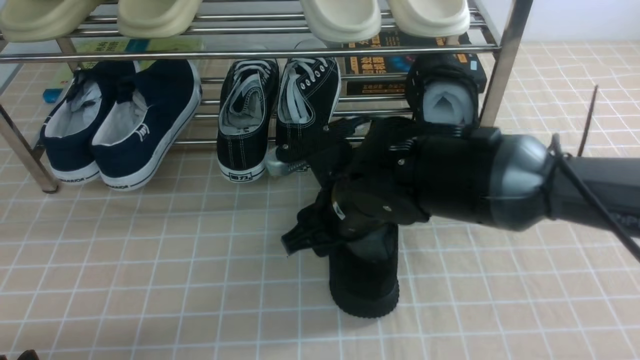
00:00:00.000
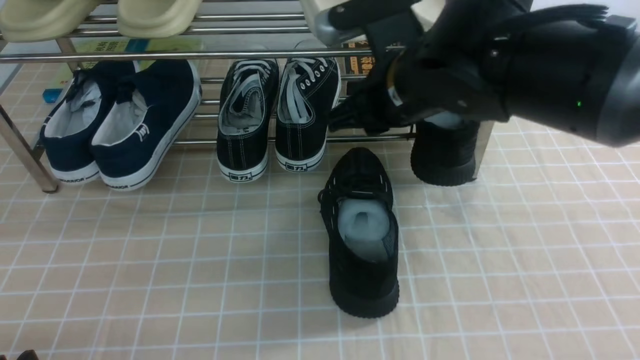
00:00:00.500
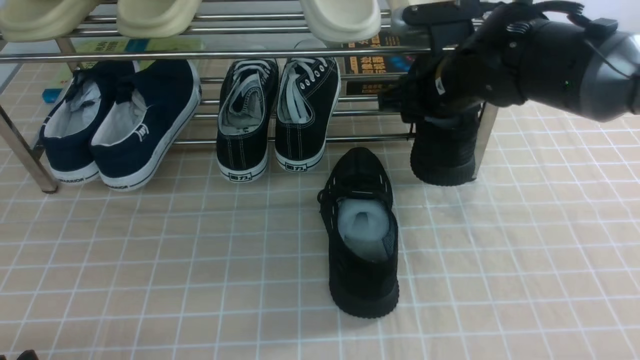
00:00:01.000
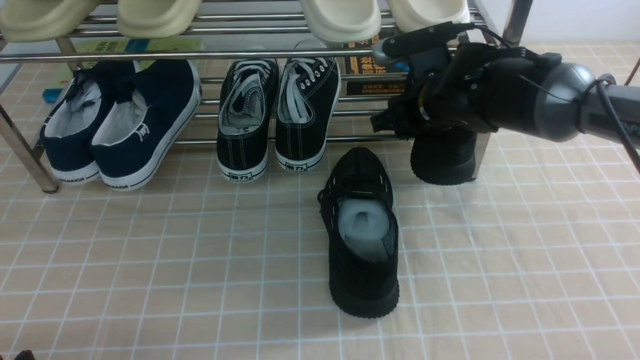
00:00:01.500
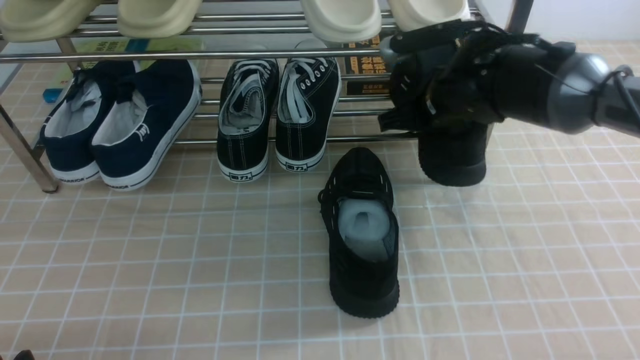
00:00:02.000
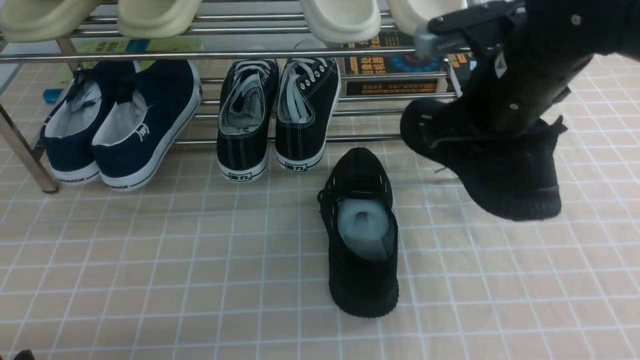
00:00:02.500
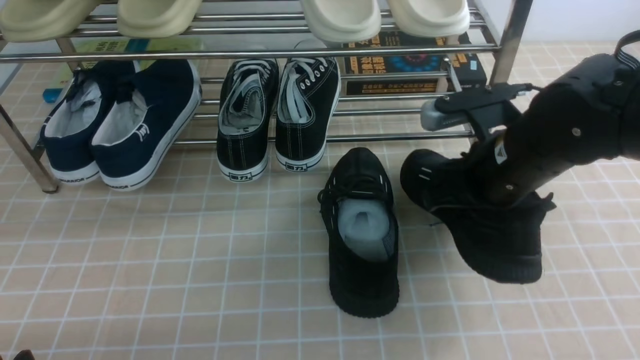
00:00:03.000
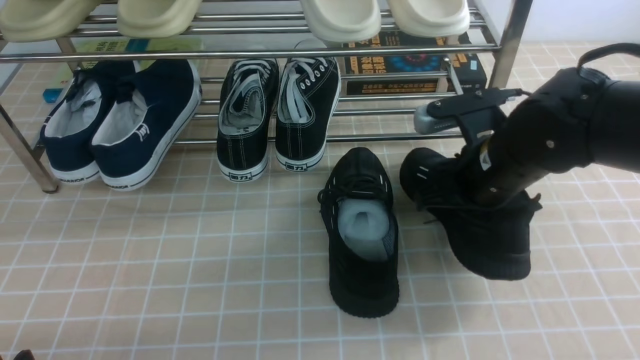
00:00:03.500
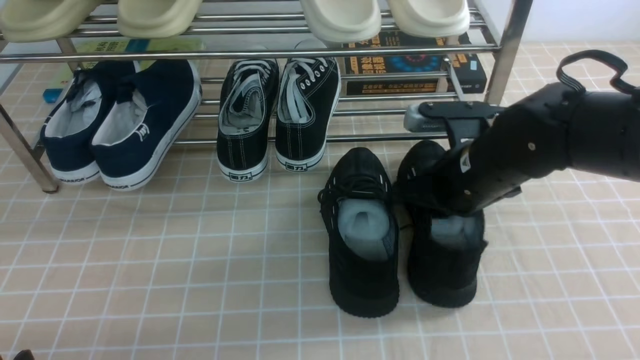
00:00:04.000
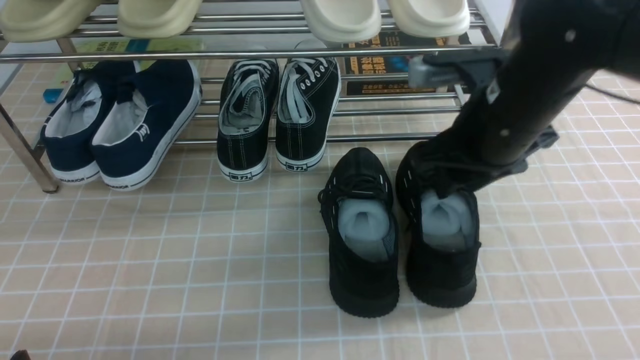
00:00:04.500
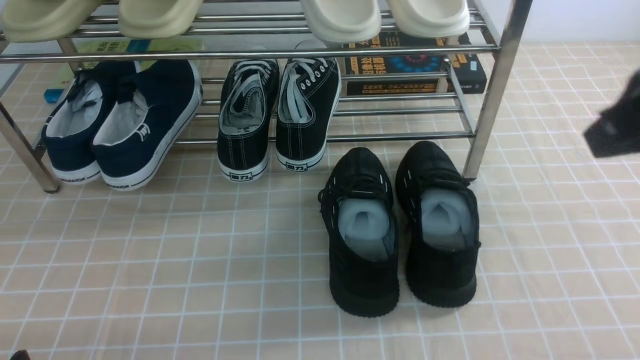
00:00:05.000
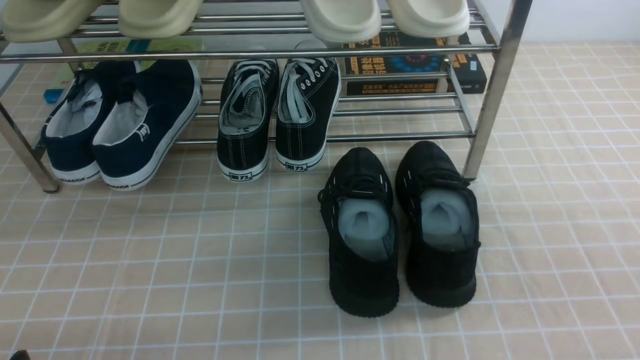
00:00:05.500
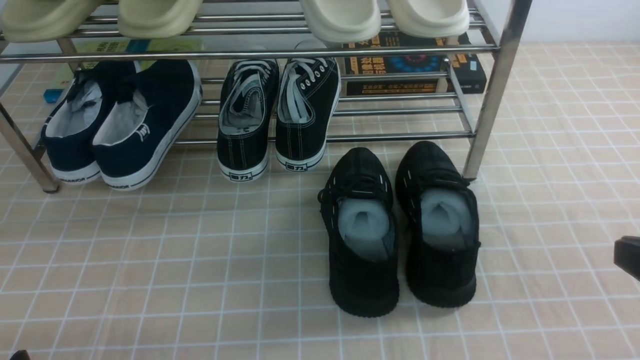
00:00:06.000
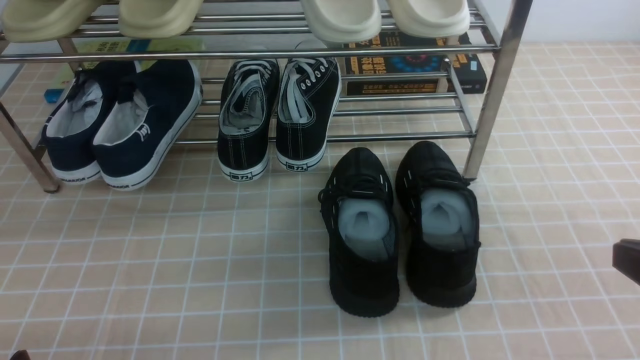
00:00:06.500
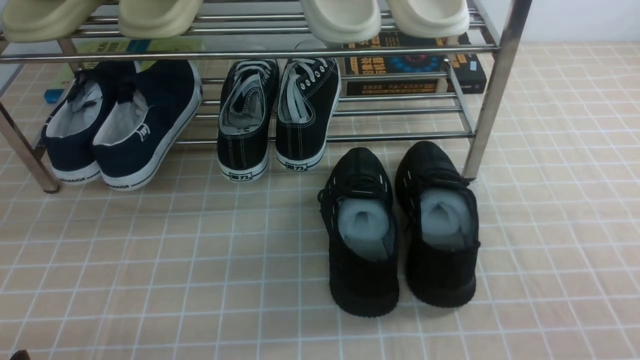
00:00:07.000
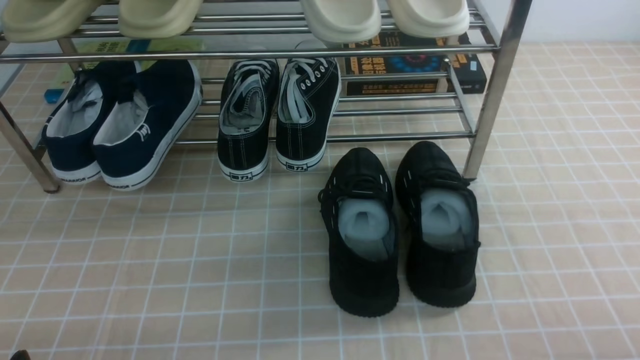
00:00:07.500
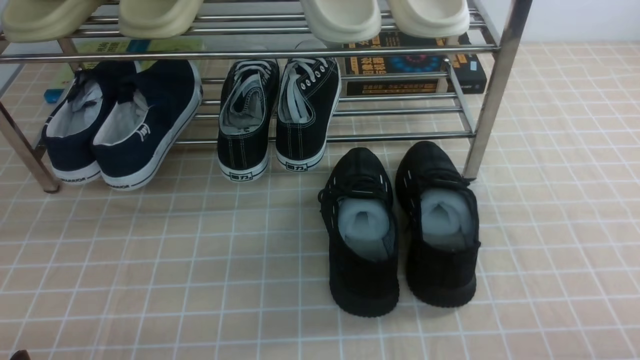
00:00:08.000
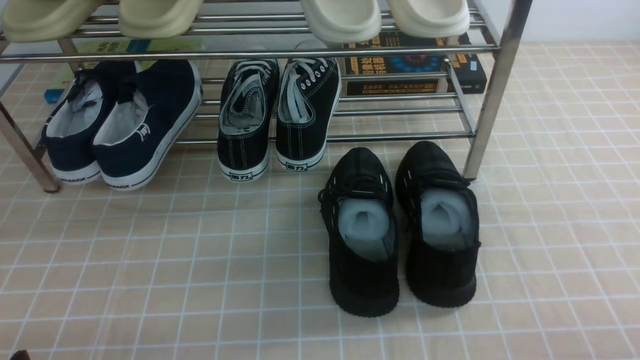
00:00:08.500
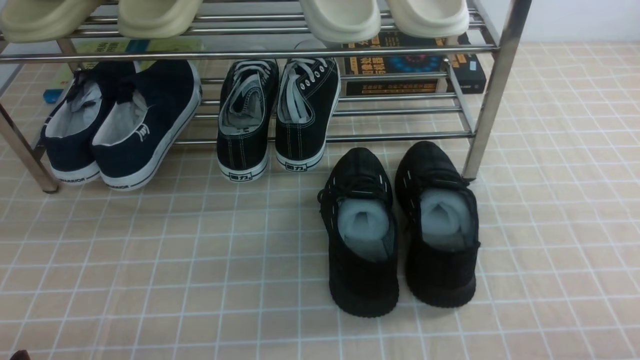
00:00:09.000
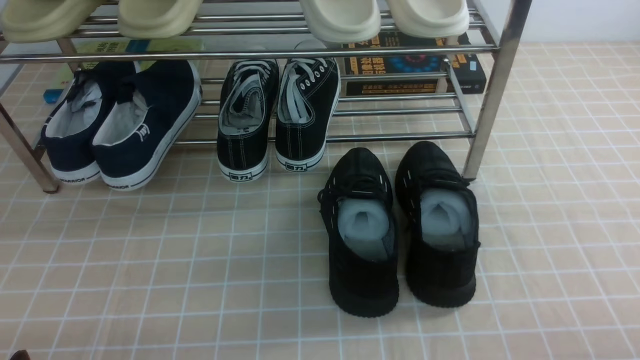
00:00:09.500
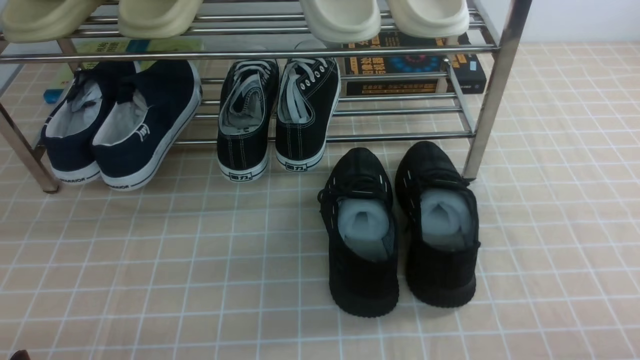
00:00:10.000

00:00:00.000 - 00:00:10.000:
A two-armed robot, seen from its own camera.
Step, 00:00:00.000 - 00:00:01.500: use the right arm to clamp a shoe on the right side of the shoe rack.
Step, 00:00:02.000 - 00:00:04.000: use the right arm to take out the clamped shoe from the shoe rack and put it down.
00:00:00.000 - 00:00:02.000: The right gripper goes approximately 15 cm forward and to the right, and closes its fingers.
00:00:02.000 - 00:00:04.000: The right gripper heads backward, covering about 5 cm, and opens.
00:00:04.000 - 00:00:06.000: The right gripper moves backward and to the right, some 25 cm, and closes up.
00:00:08.000 - 00:00:10.000: Both grippers stay put.

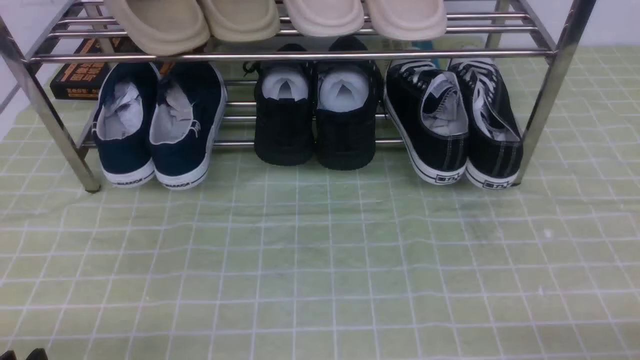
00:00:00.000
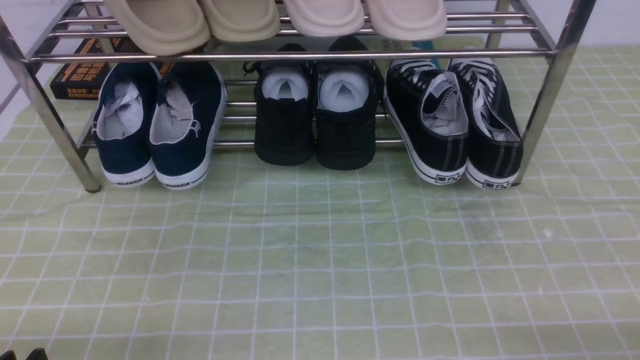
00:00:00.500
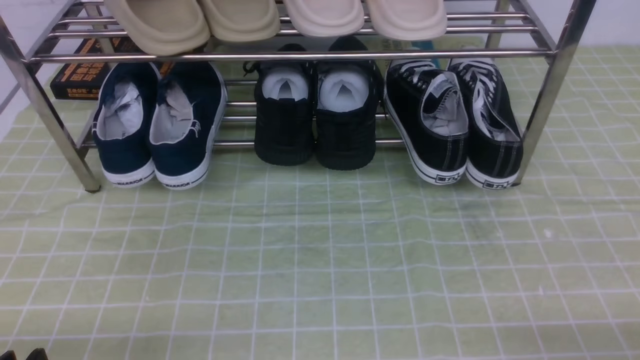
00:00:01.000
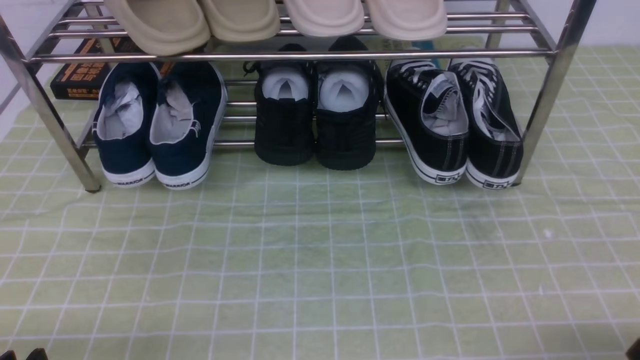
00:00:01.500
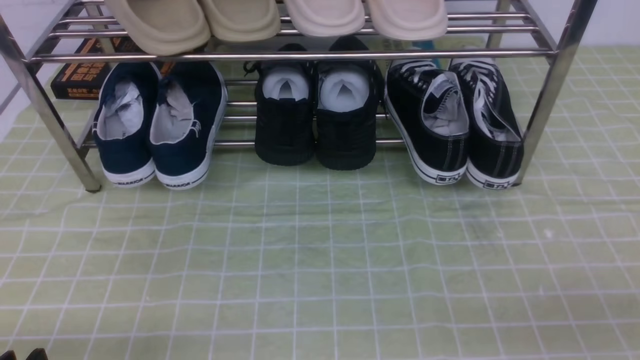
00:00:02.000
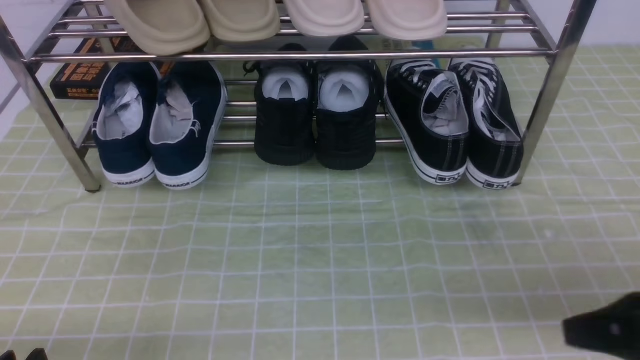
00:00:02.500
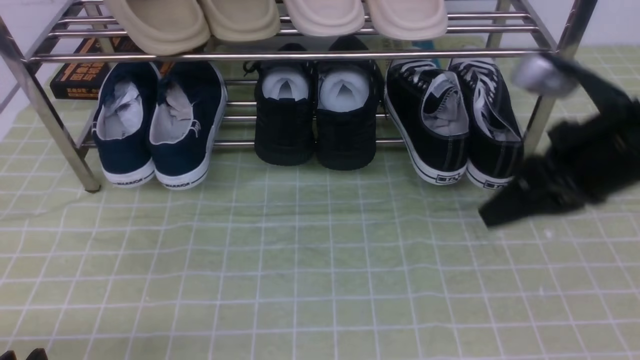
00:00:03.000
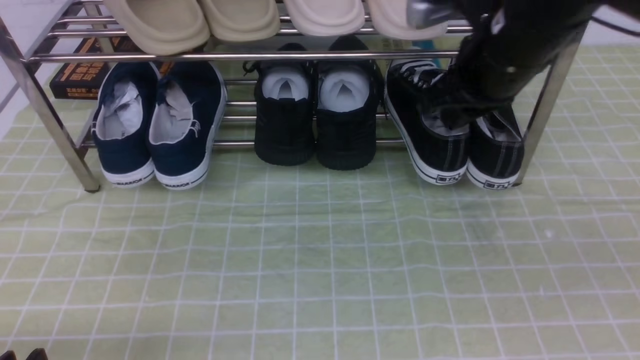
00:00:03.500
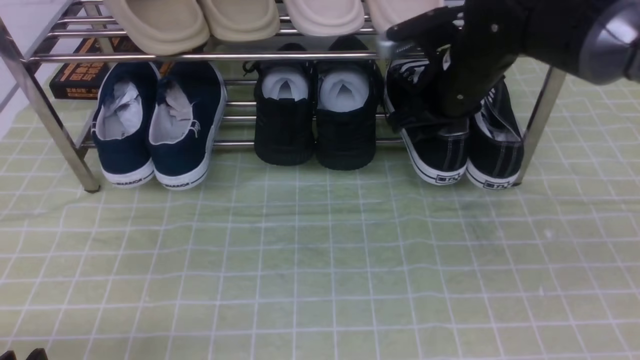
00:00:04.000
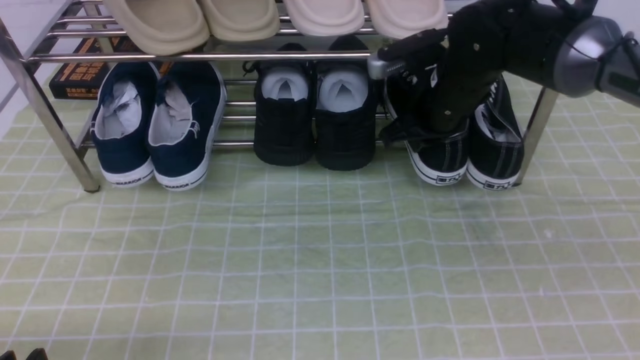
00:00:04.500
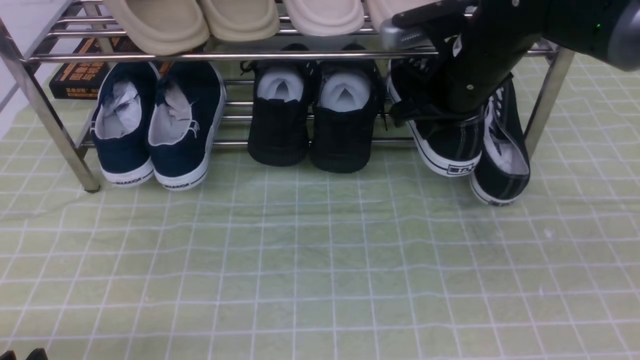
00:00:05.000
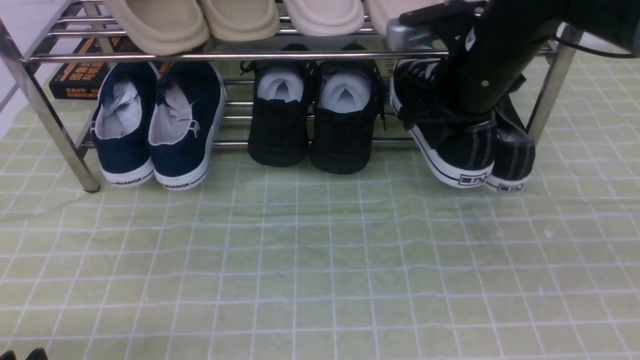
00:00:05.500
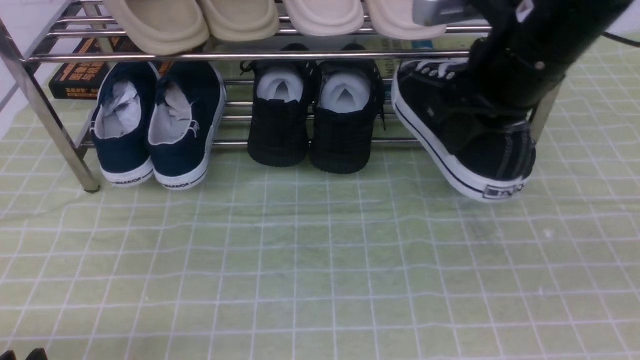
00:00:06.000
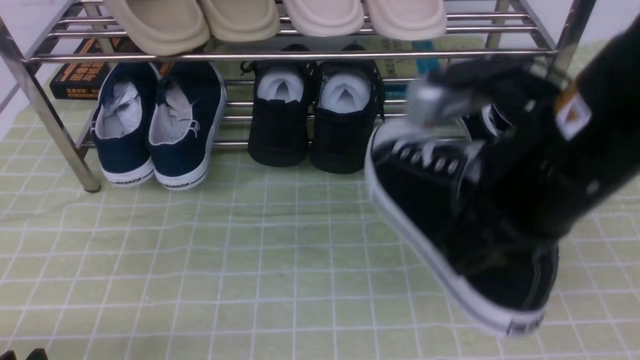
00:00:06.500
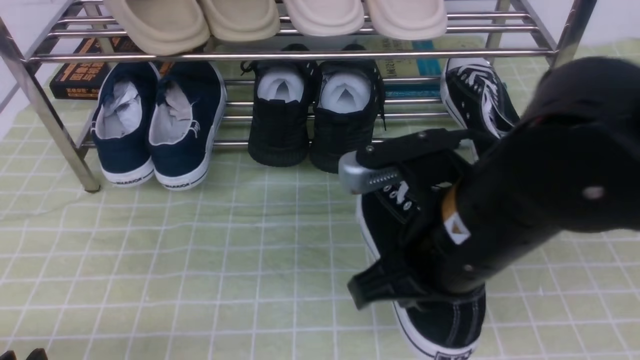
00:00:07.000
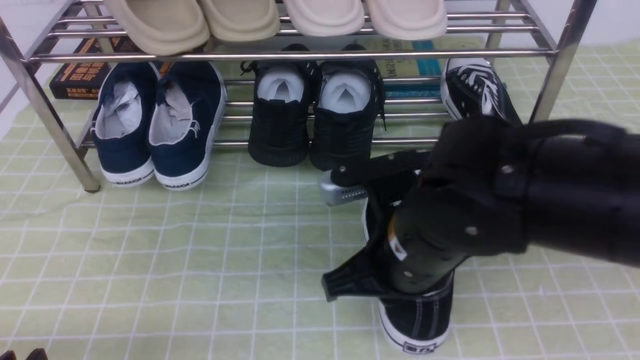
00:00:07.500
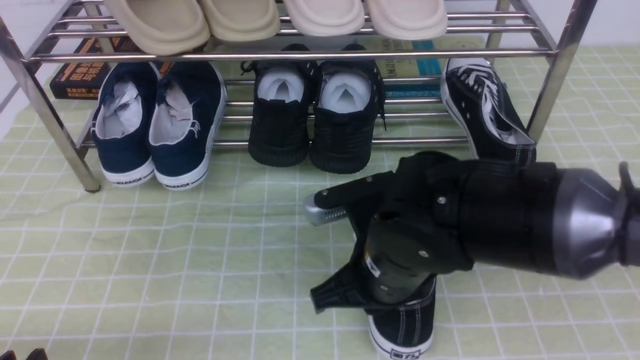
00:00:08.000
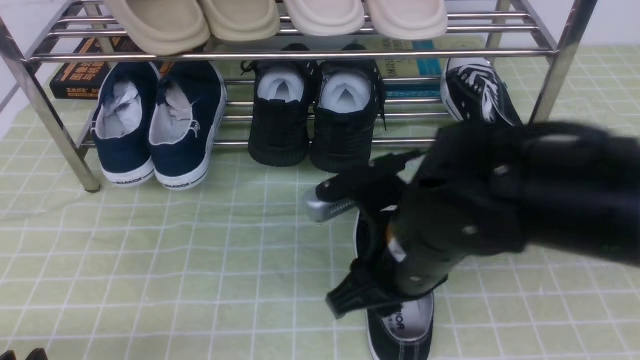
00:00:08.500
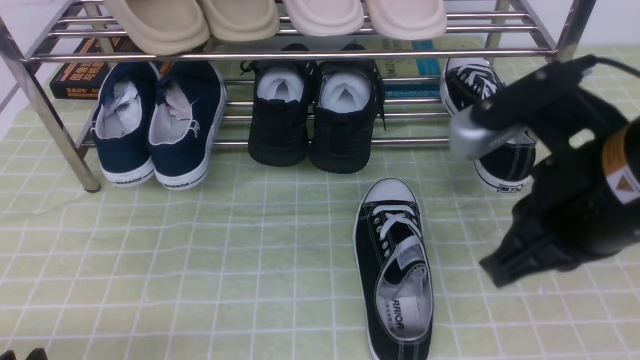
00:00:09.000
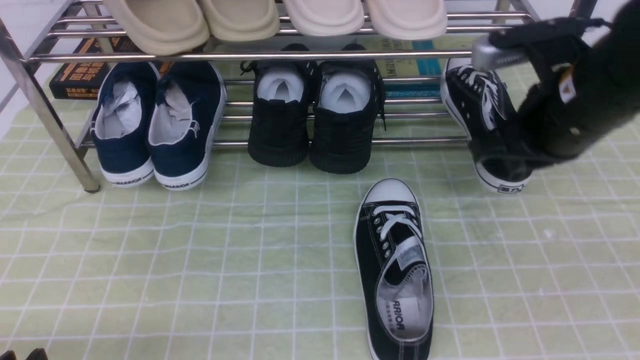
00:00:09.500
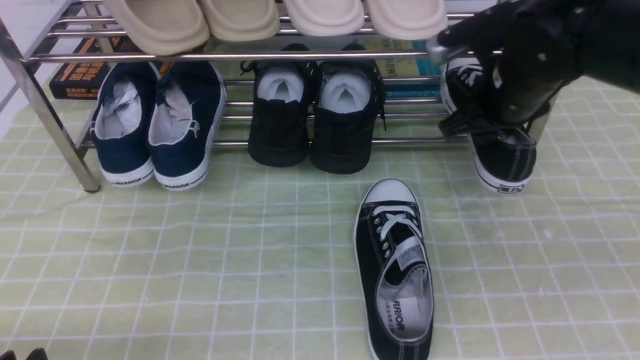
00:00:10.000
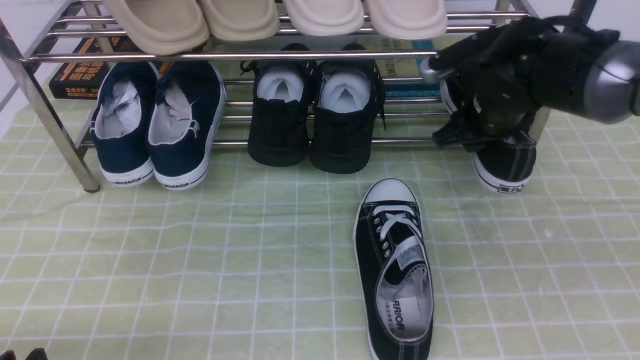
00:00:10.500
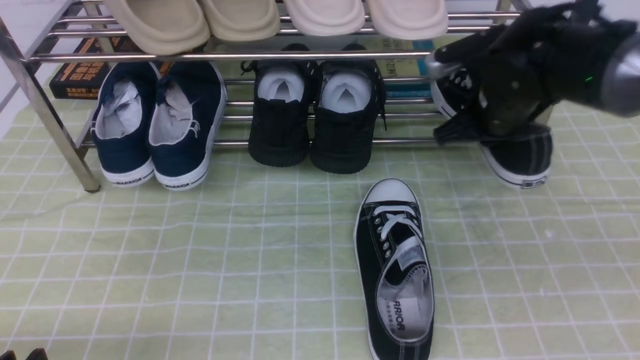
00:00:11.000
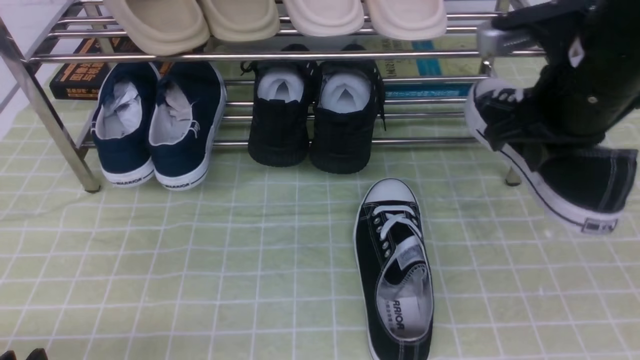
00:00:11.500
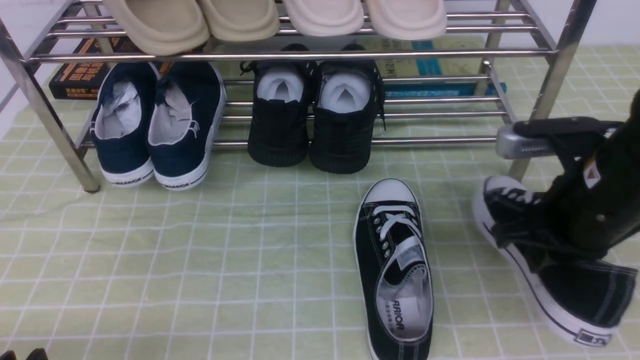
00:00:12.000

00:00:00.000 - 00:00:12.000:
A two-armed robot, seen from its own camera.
Step, 00:00:00.000 - 00:00:04.500: use the right arm to clamp a shoe on the right side of the shoe rack.
Step, 00:00:05.000 - 00:00:08.500: use the right arm to take out the clamped shoe from the shoe rack and put it down.
Step, 00:00:09.000 - 00:00:10.500: use the right arm to clamp a shoe on the right side of the shoe rack.
00:00:02.000 - 00:00:04.000: The right gripper moves forward and to the left, approximately 40 cm, and opens its fingers.
00:00:04.000 - 00:00:06.000: The right gripper is displaced backward and upward by about 10 cm, and closes its fingers.
00:00:06.000 - 00:00:08.000: The right gripper is displaced downward, to the left and backward by approximately 20 cm.
00:00:08.000 - 00:00:10.000: The right gripper goes roughly 20 cm forward, to the right and upward, and opens its fingers.
00:00:10.000 - 00:00:12.000: The right gripper is displaced backward by roughly 10 cm, and closes its fingers.
